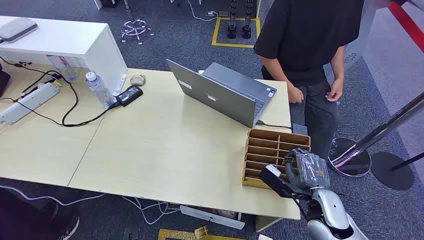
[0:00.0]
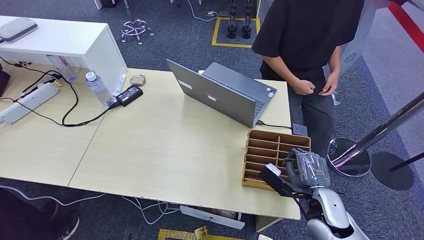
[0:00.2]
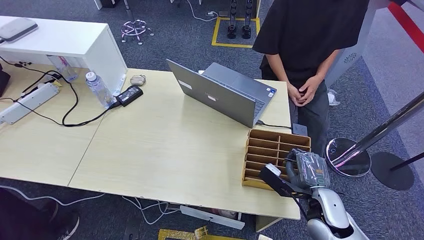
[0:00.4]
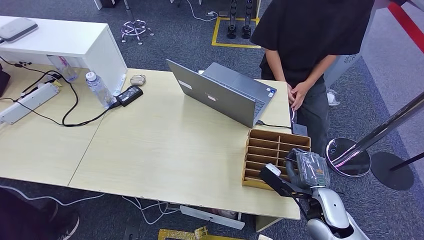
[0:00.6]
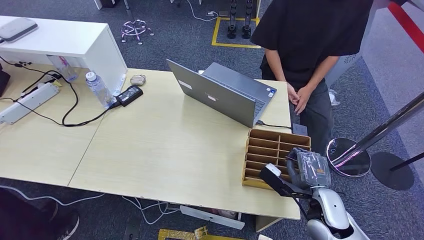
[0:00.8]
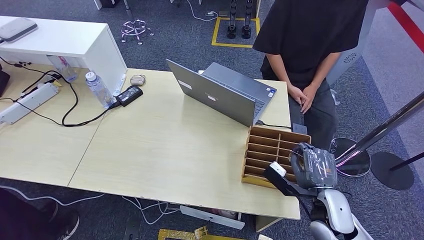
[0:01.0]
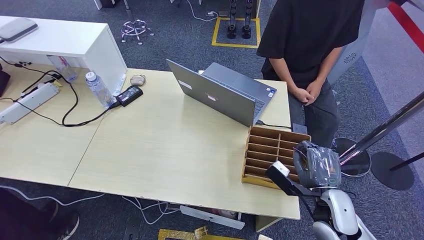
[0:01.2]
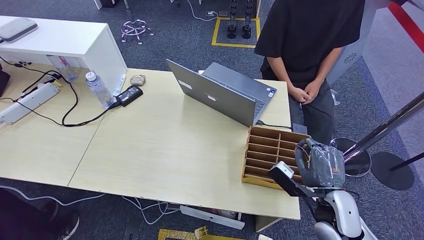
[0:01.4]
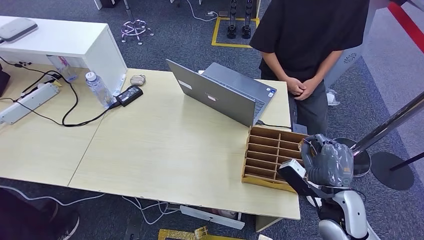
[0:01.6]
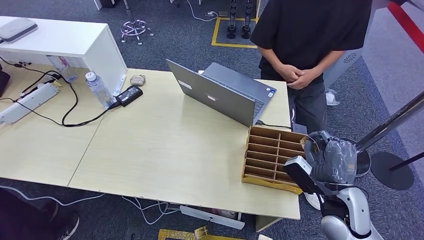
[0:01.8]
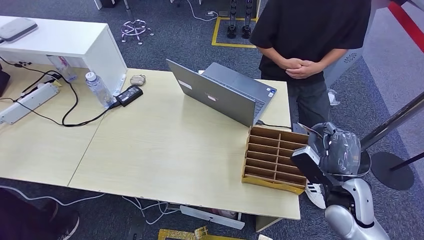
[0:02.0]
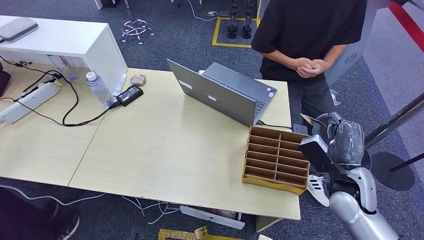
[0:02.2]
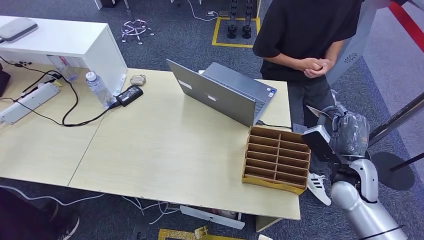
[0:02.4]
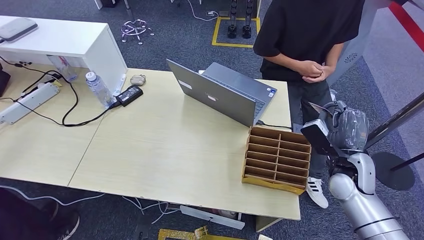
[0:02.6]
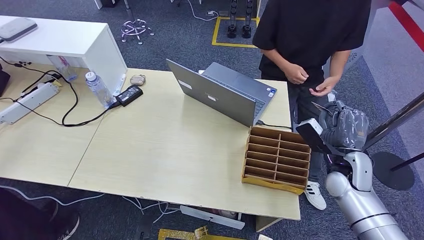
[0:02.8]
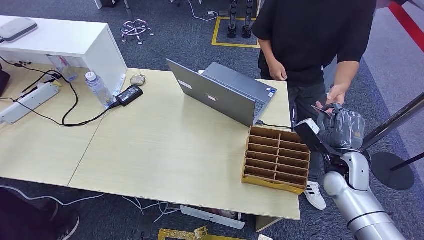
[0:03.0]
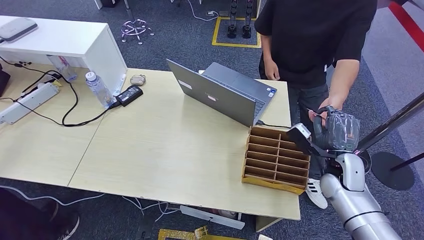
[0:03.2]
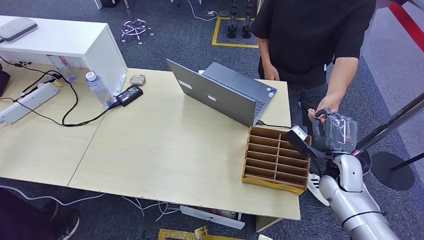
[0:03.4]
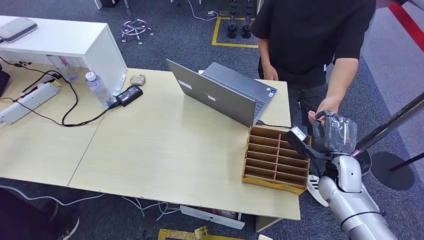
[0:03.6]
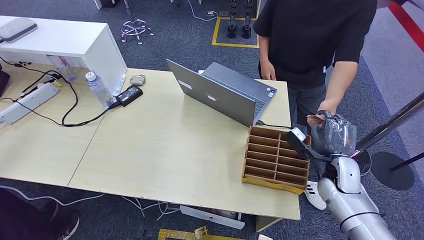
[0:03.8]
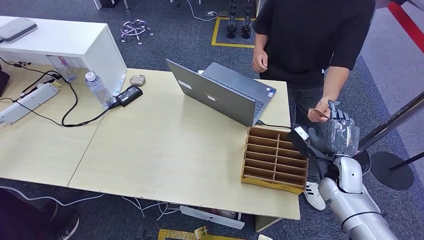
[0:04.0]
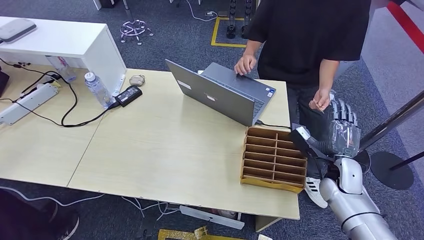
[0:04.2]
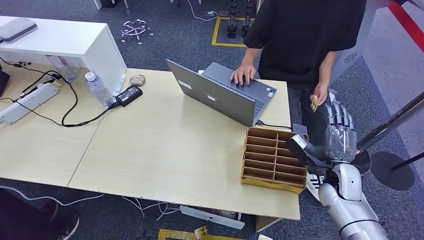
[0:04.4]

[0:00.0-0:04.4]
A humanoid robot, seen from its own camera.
Step, 0:00.0 to 0:03.0: Pick up the key card from the card box.
Step, 0:03.2 to 0:04.4: Hand the key card to the target.
0:01.4 to 0:03.0: The right hand is displaced forward by some 10 cm.
0:03.0 to 0:04.4: There are only small adjustments of the hands.
